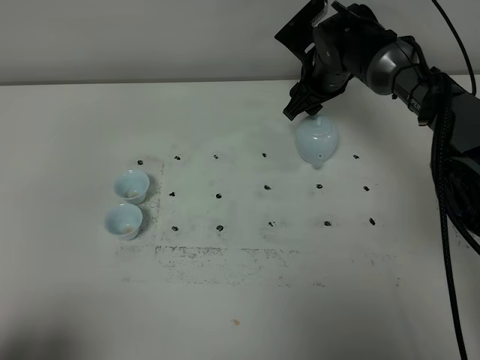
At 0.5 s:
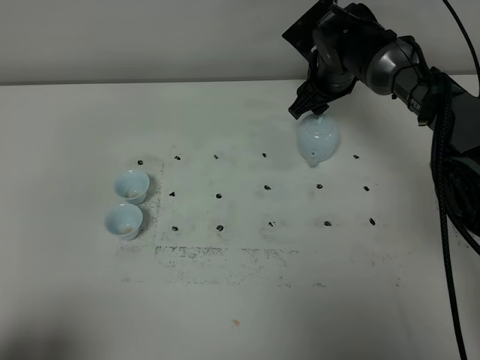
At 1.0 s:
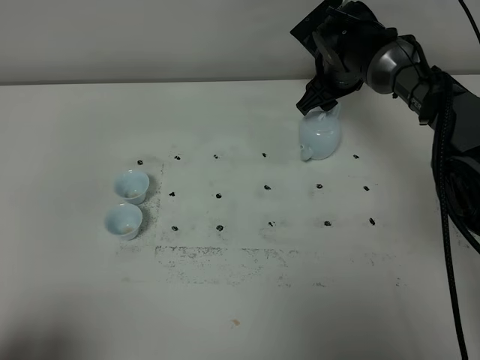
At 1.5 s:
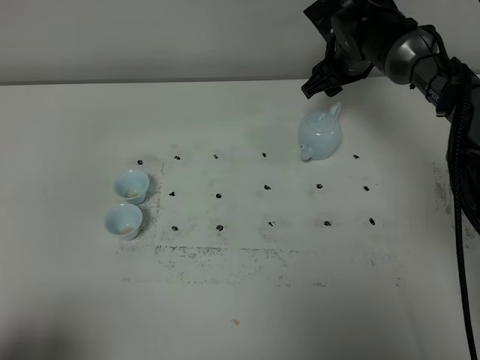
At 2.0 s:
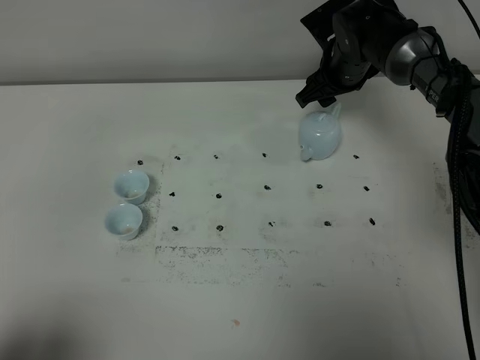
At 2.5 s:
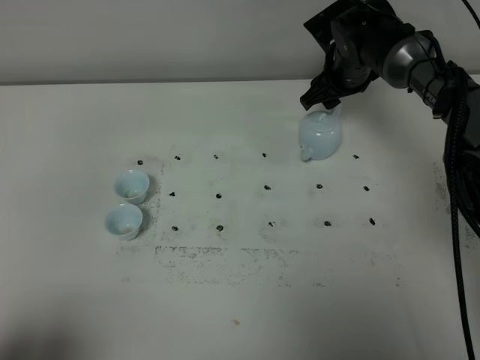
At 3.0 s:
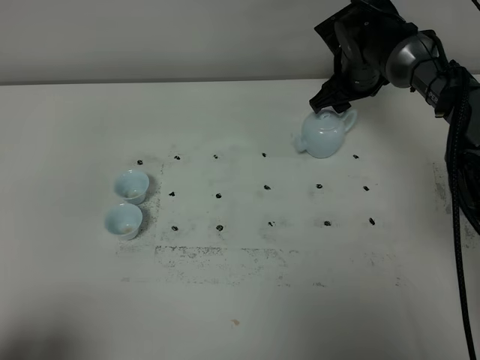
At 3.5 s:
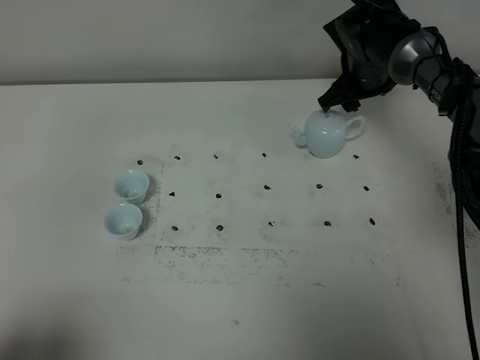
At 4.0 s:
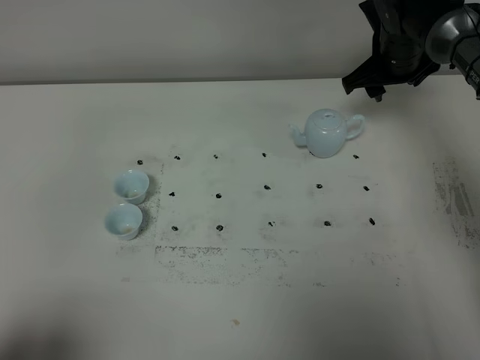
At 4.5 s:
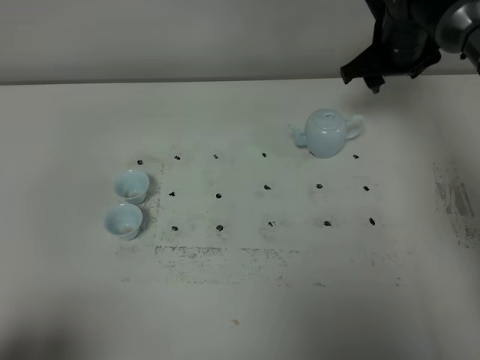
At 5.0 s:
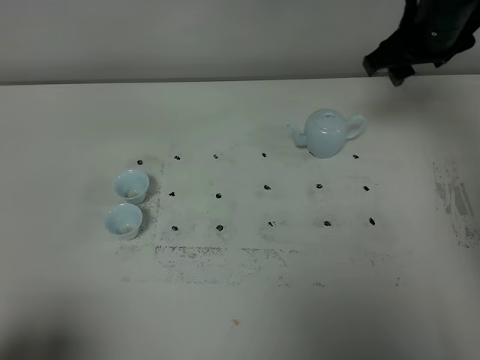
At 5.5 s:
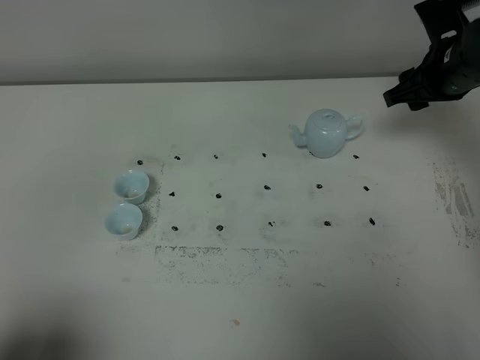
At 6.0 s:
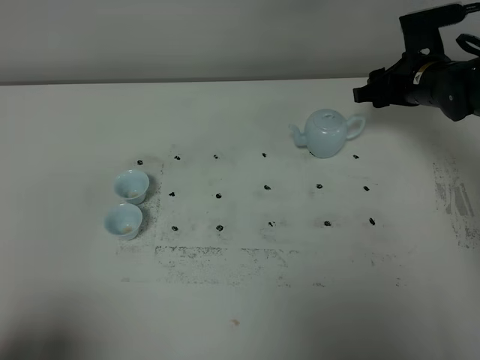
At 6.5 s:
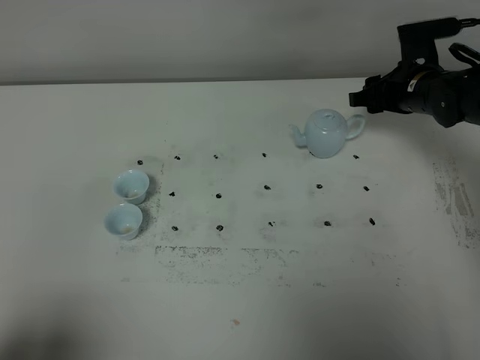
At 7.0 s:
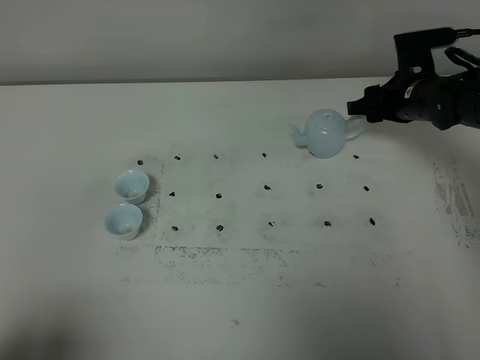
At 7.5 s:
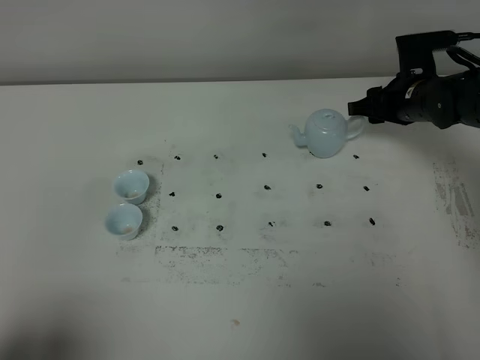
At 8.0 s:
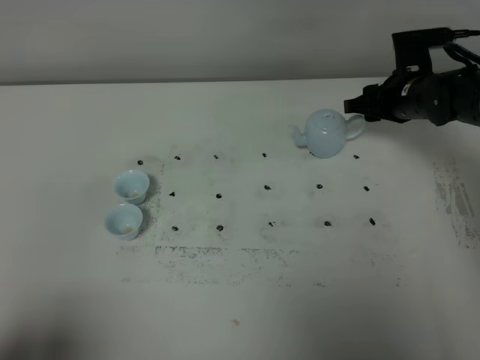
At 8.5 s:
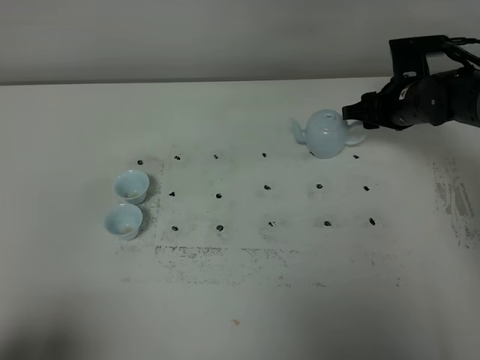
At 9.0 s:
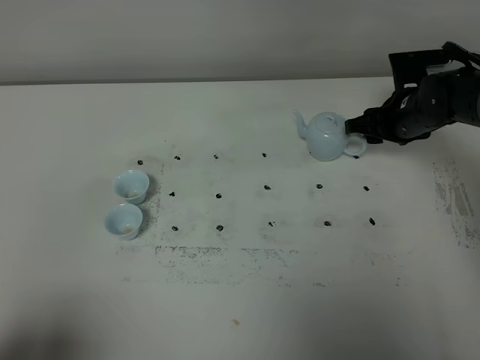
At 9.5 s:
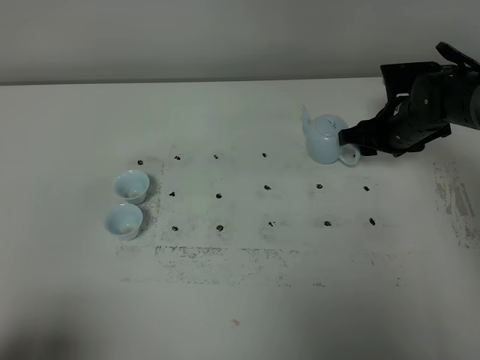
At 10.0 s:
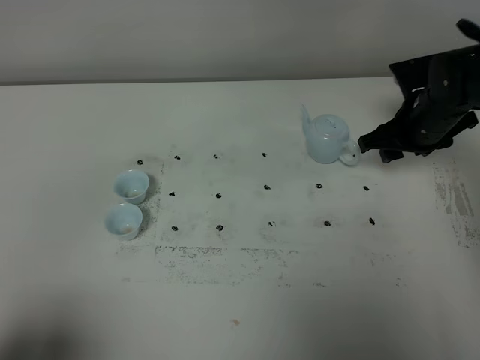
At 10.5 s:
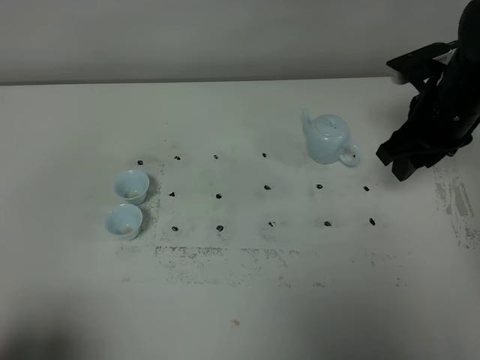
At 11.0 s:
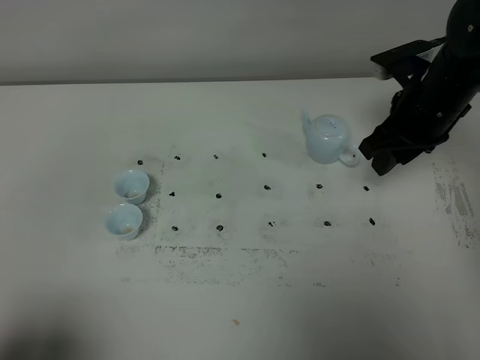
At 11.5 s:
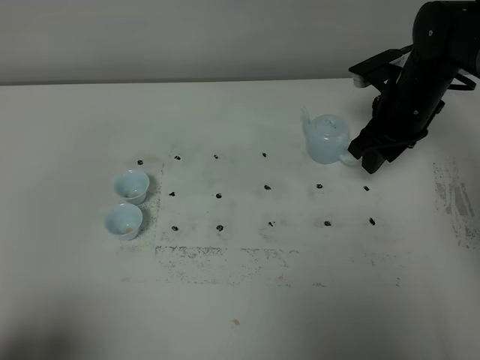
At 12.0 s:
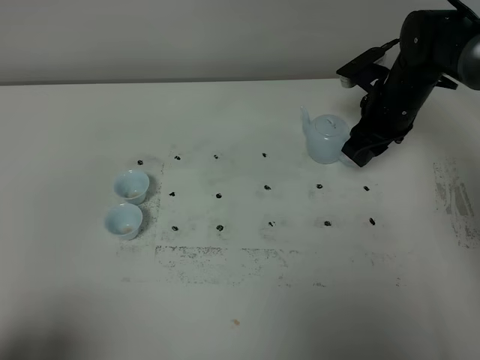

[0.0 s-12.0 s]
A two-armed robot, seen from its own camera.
Task of the whole recording: grasp the blue porcelain teapot and pour the tea into the two blue porcelain teacups one by one, put the blue porcelain teapot back in its original place.
0.0 to 2.0 s: The grippers stay close to where they were, moving slightly.
2.0 to 4.0 s: The right gripper is displaced to the right by roughly 5 cm.
4.0 to 6.0 s: The right gripper moves roughly 10 cm upward and comes back.
6.0 to 8.0 s: The grippers stay close to where they were, moving slightly.
8.0 to 10.0 s: The right gripper ends up approximately 5 cm from where it was.

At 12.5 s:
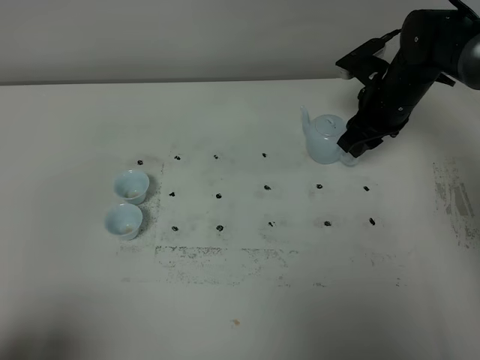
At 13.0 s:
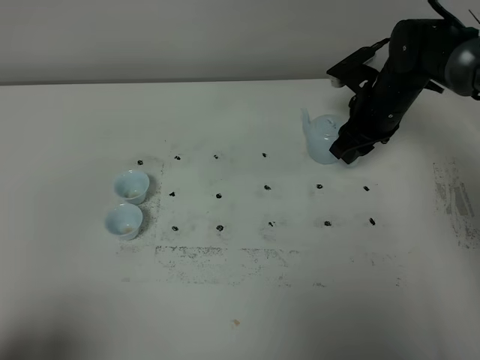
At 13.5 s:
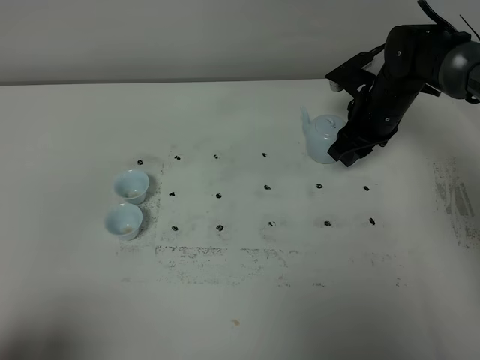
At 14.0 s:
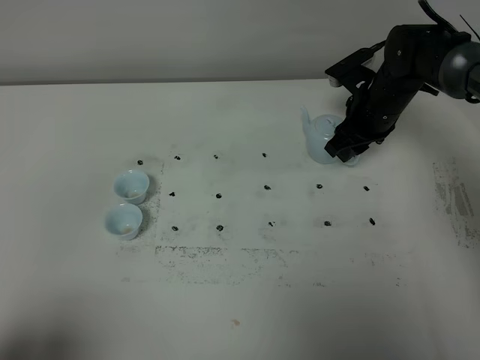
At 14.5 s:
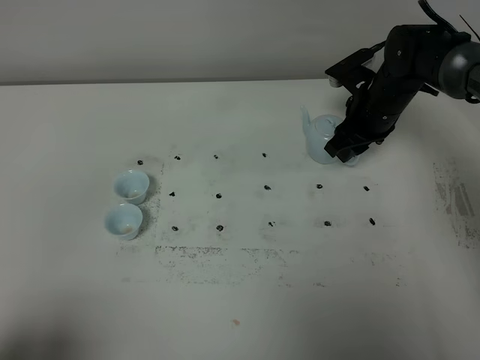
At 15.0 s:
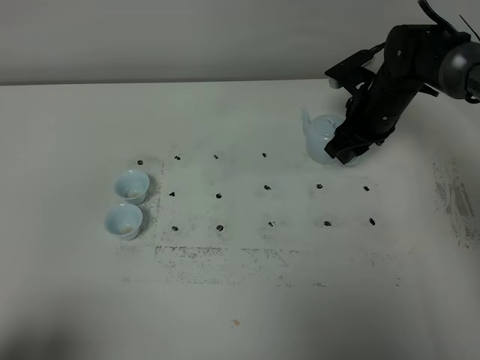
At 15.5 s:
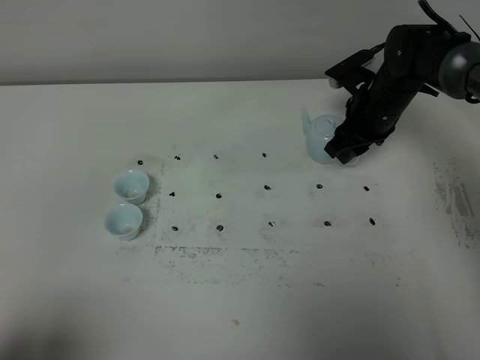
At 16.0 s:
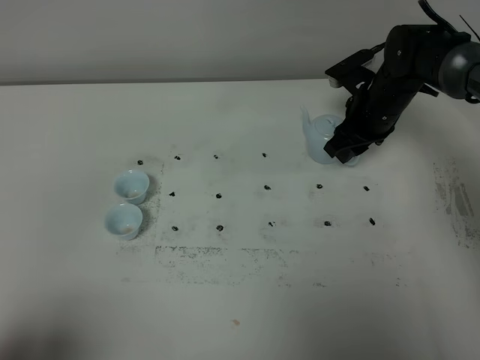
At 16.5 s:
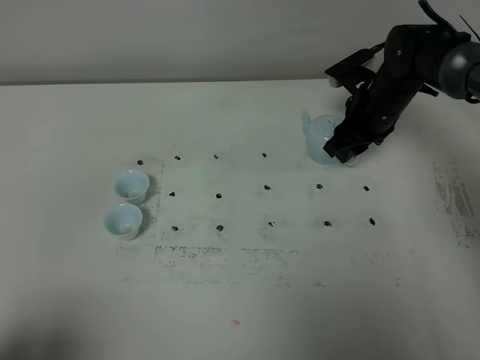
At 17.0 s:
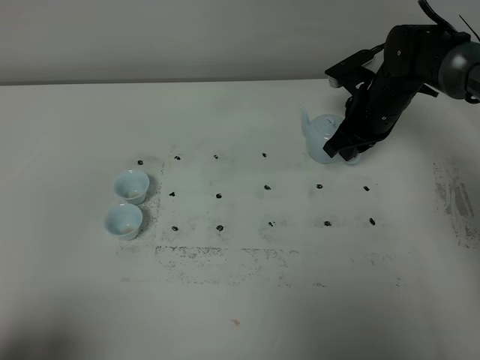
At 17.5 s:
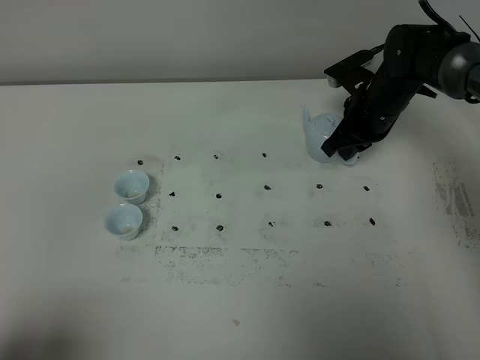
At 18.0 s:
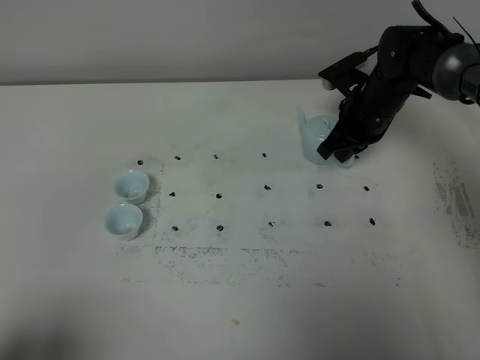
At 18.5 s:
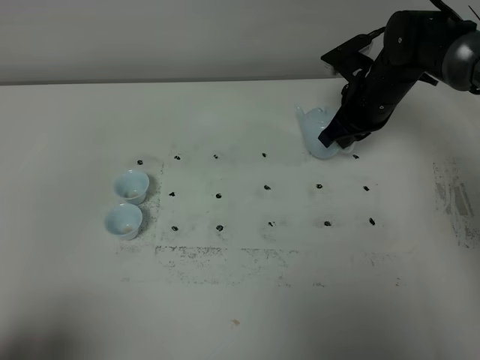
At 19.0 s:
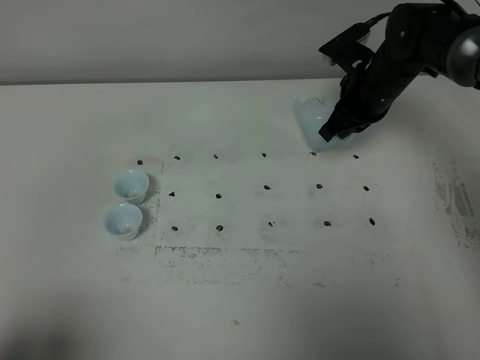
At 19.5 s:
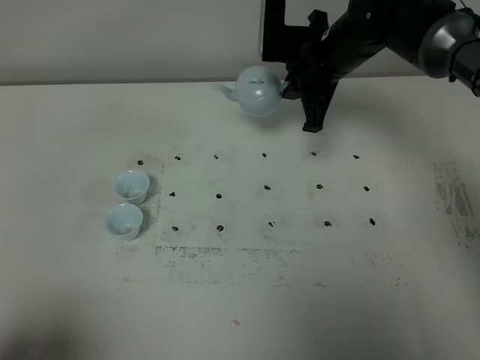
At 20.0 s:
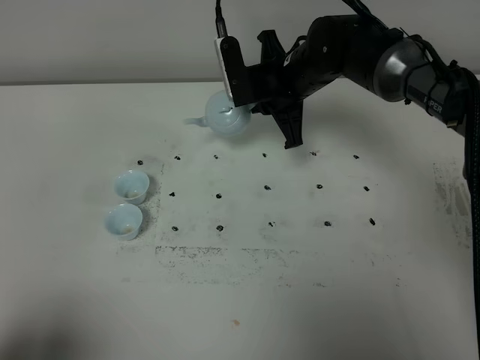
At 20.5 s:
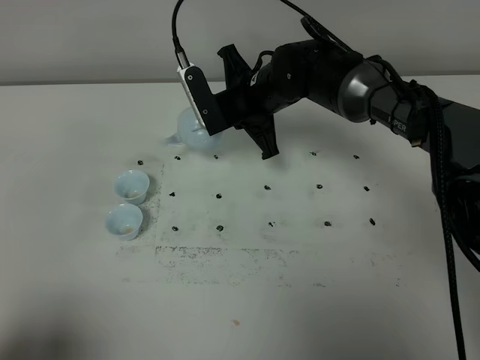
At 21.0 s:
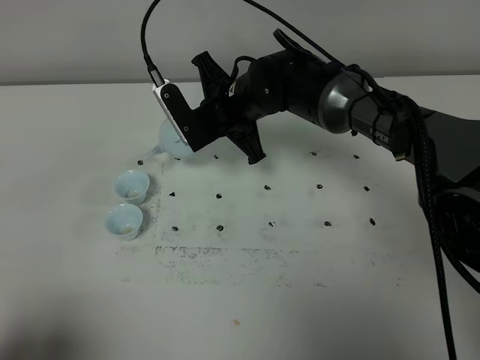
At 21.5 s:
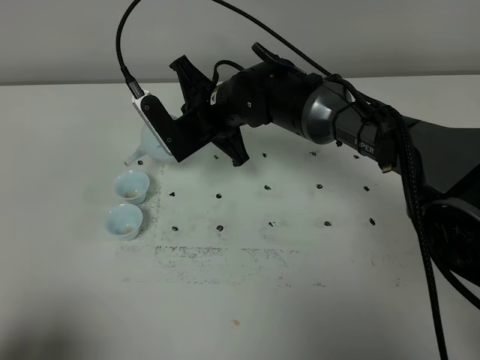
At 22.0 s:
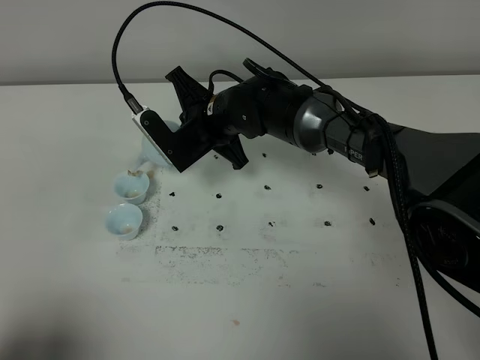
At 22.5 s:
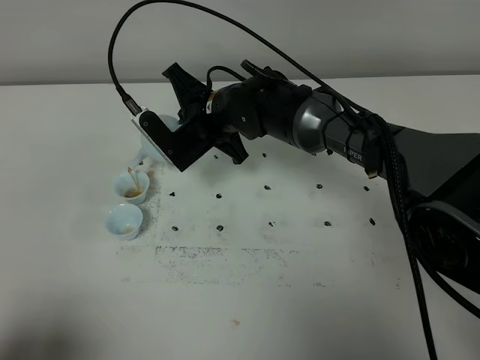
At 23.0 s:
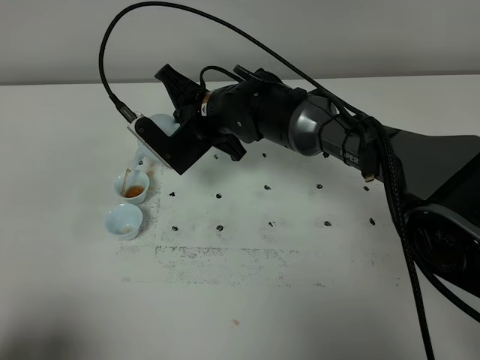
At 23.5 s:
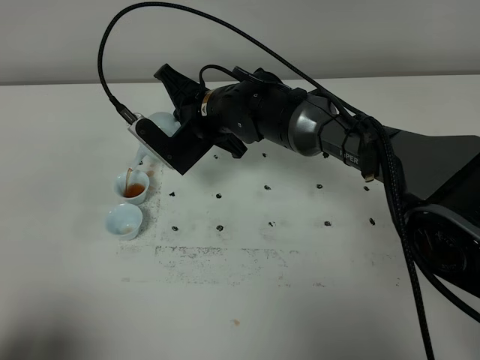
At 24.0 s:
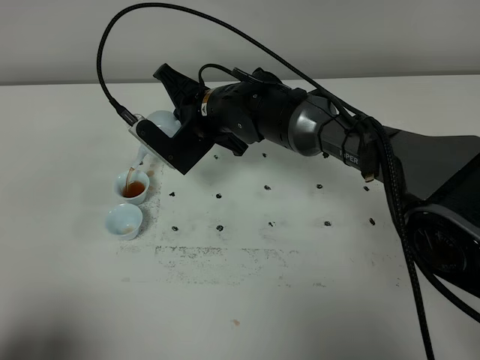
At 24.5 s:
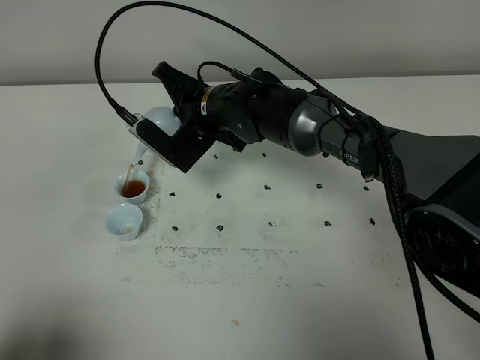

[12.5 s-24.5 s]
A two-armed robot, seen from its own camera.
Task of the whole recording: grasp the blue porcelain teapot and pour the tea into the two blue porcelain teacups one by one, put the blue porcelain teapot back in its original place.
Step, 12.5 to 19.0 s: Pick up the teapot with the right gripper.
12.5 to 14.5 s: The grippers move only a little.
14.5 to 16.5 s: Neither gripper changes place.
16.5 to 18.5 s: The right gripper closes.
18.5 to 20.5 s: The right gripper moves to the left, roughly 15 cm.
20.5 to 22.5 s: The right gripper heads to the left, covering some 5 cm.
22.5 to 24.5 s: The grippers move only a little.

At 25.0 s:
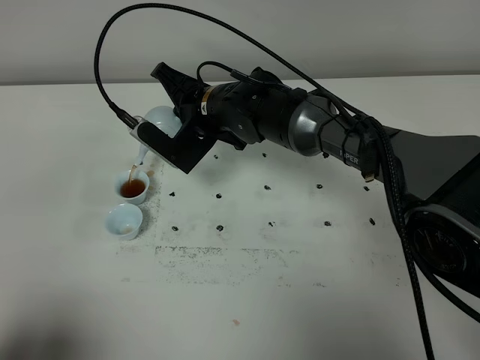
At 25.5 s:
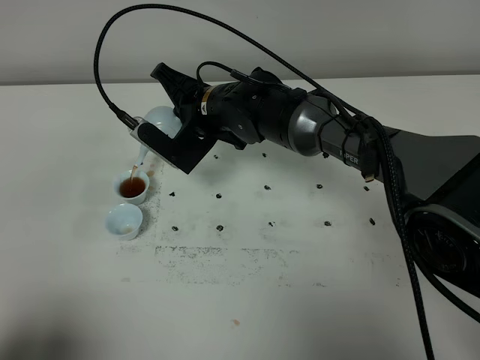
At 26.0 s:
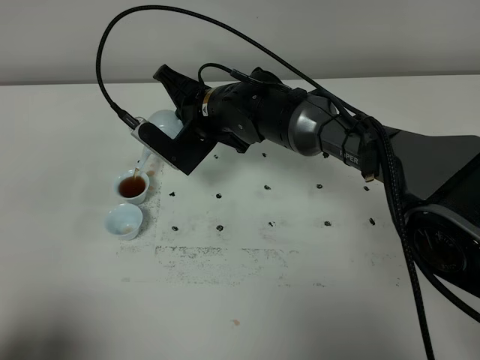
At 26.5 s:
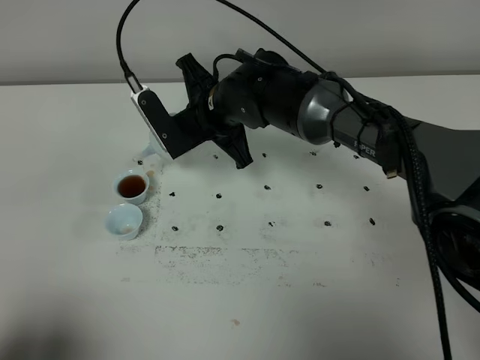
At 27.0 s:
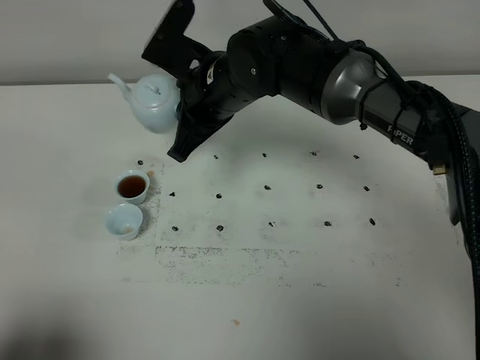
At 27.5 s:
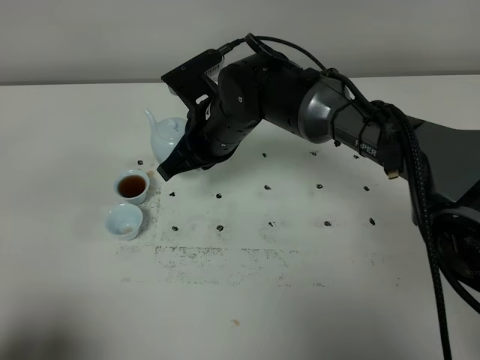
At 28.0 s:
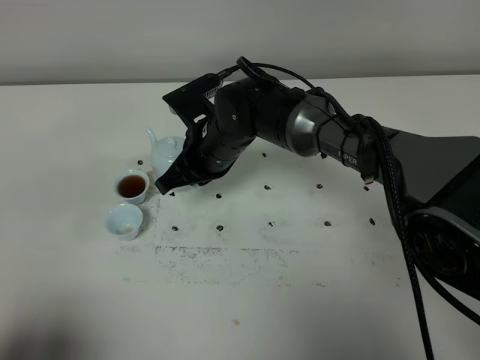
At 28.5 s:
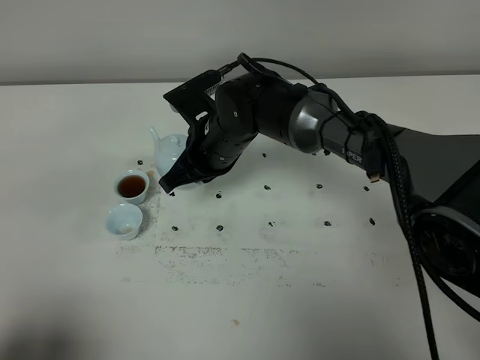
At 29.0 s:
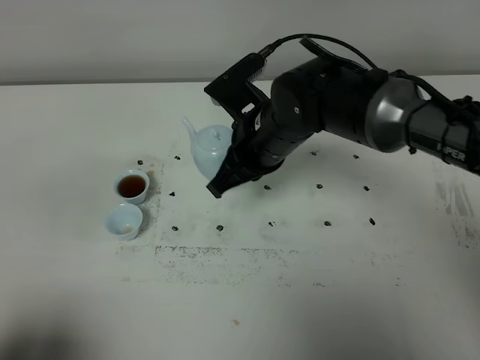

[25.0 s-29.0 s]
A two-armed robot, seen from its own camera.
Task of the whole recording: grasp the blue porcelain teapot and pour the tea into the two blue porcelain teacups one by one, put the blue porcelain teapot back in its original place.
25.0 to 27.0 s: The right gripper shifts some 5 cm upward.
27.0 to 29.0 s: The right gripper travels to the right by about 5 cm.
